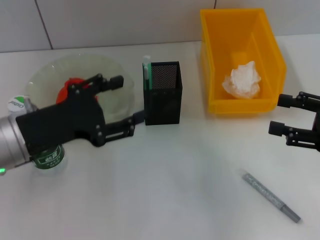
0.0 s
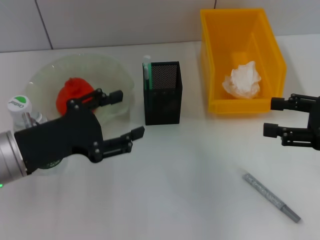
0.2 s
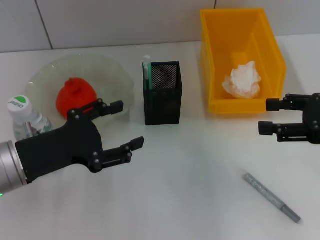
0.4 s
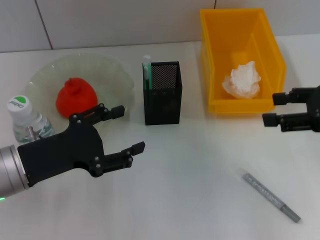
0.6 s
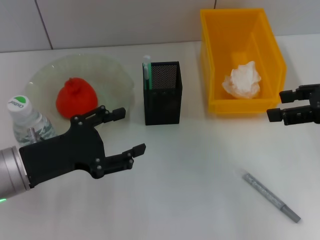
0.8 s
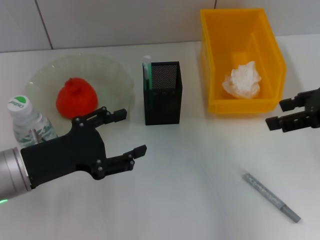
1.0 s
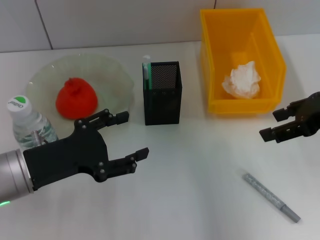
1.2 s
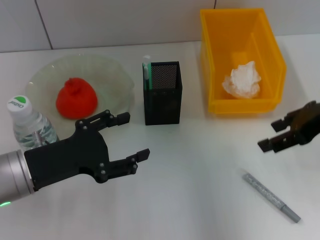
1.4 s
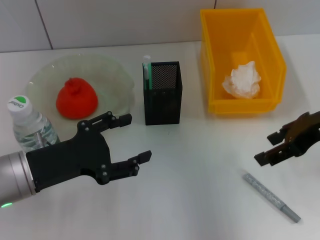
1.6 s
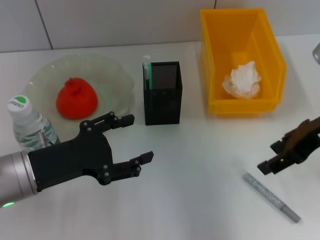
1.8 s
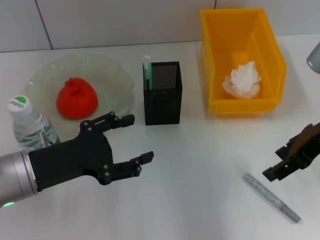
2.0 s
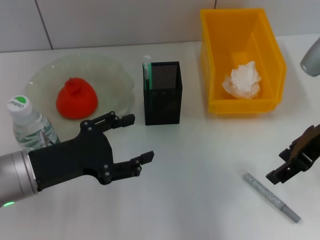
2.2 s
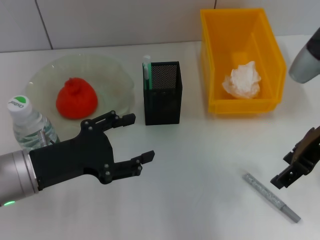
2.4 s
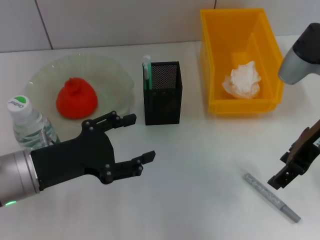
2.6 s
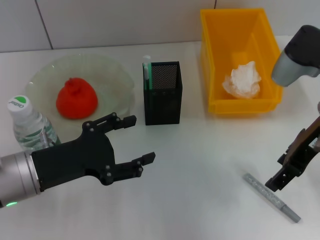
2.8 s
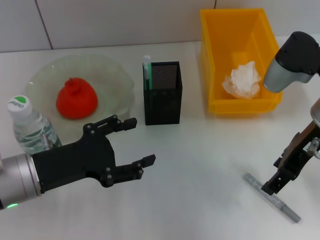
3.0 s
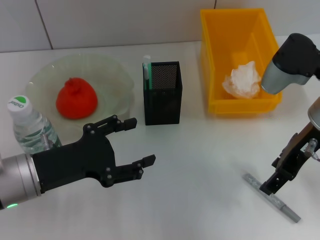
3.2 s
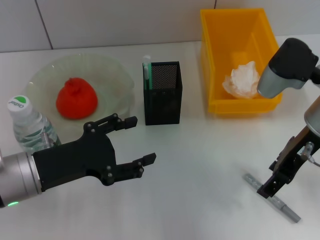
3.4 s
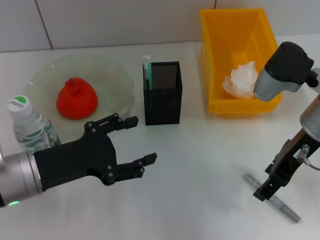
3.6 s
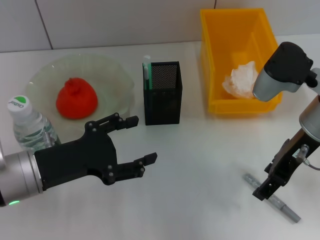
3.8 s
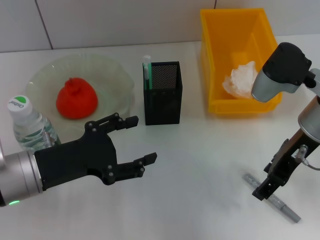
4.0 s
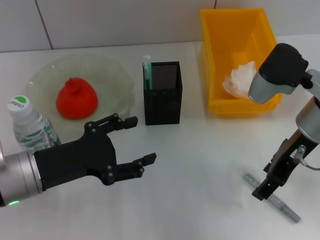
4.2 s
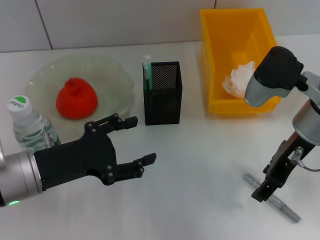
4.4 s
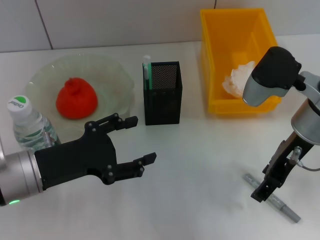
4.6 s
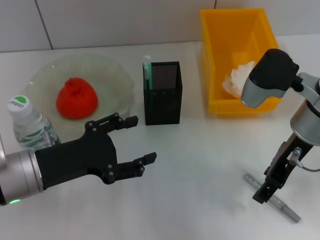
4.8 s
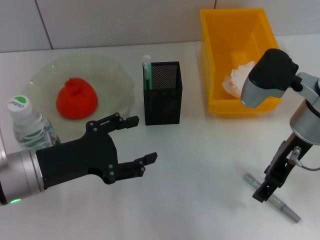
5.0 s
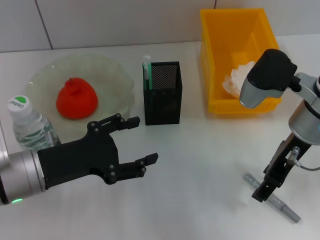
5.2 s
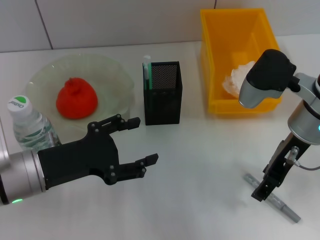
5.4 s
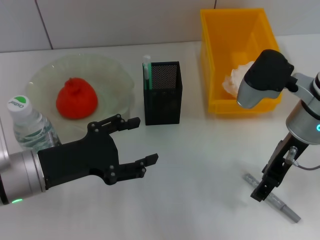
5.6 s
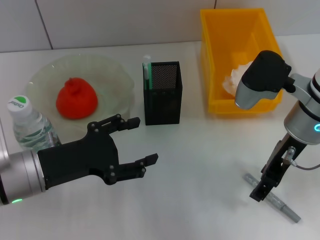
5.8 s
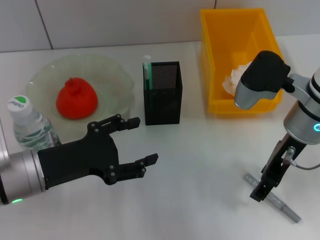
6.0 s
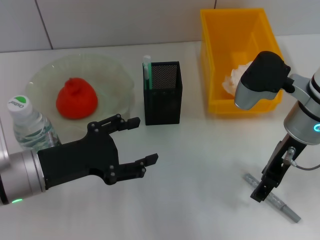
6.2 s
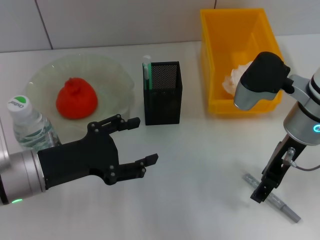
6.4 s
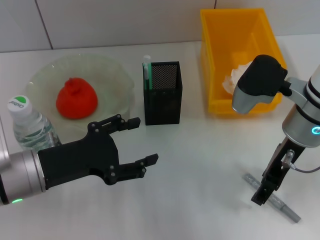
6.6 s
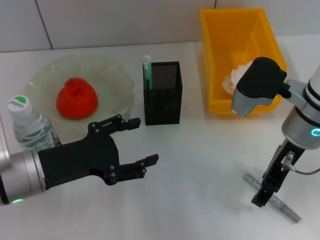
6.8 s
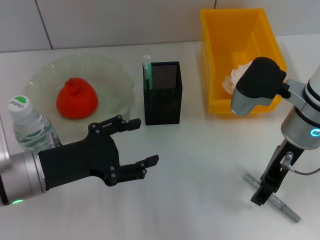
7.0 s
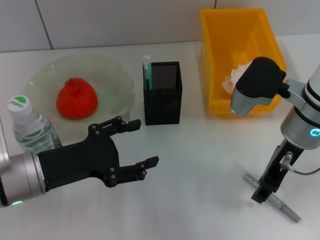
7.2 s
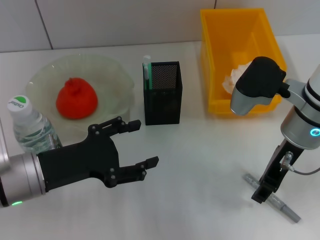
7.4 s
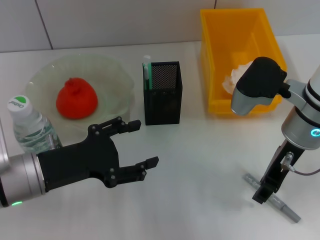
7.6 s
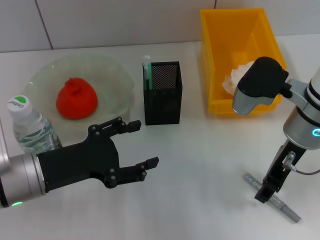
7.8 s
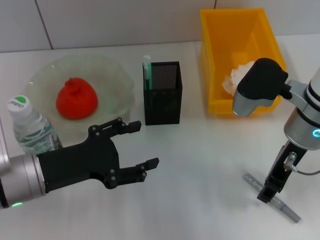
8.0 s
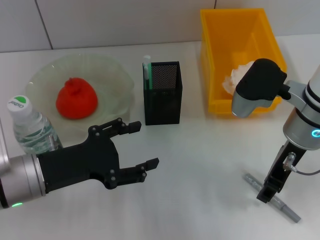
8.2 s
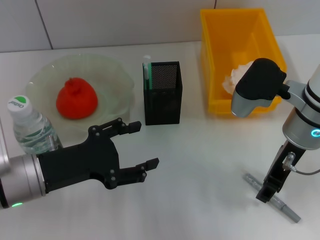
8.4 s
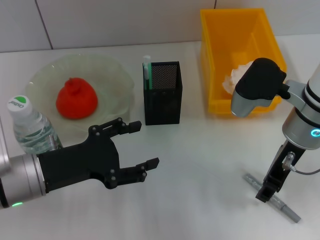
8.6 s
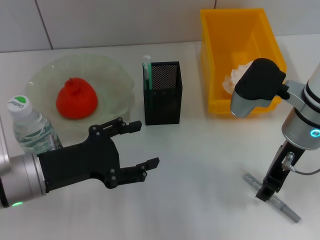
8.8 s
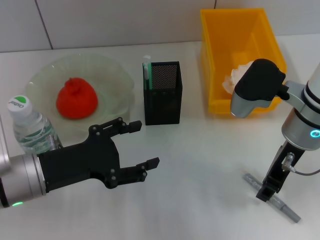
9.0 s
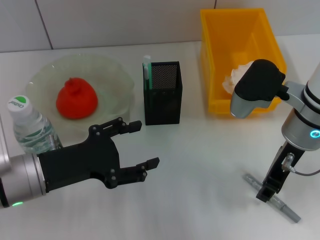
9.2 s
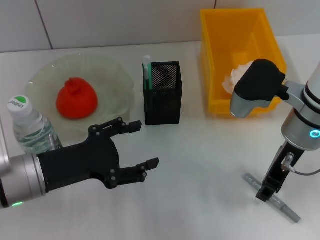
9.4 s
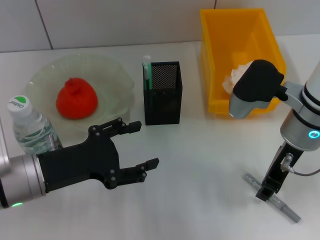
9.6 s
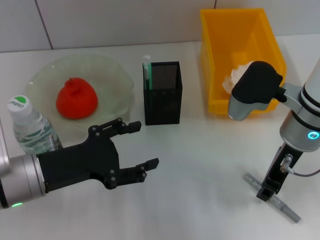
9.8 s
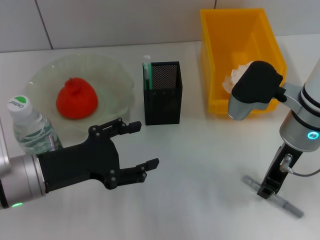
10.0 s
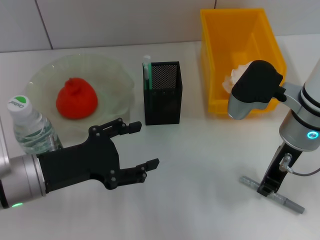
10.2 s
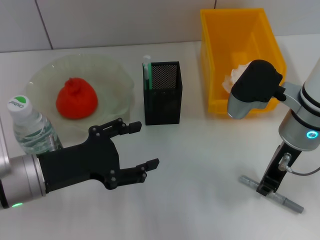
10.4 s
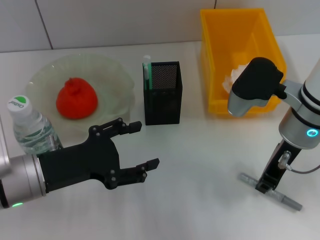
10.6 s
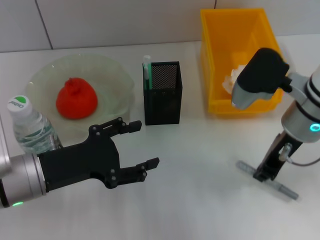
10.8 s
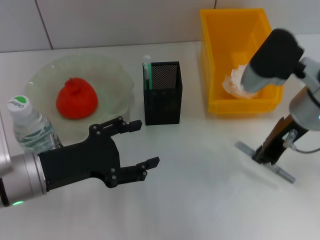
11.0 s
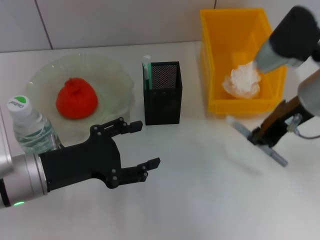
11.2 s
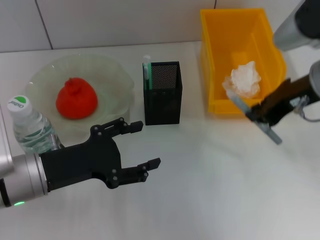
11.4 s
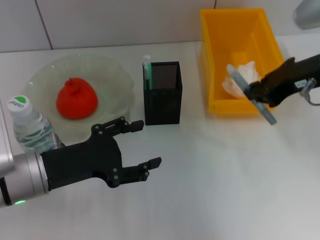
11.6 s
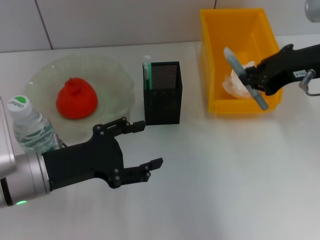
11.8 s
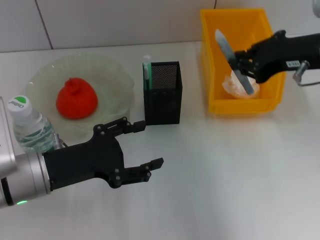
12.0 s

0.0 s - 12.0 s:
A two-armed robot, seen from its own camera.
Step, 0.0 s - 10.2 s: Grab the gray glue with the right hand.
0.0 s - 1.6 s: The right gripper is displaced forward, to the left and upward by roughly 10 cm.
1.6 s - 3.0 s: The right gripper moves to the left, about 5 cm.
3.0 s - 6.0 s: The grippers make only small movements.
6.0 s - 7.6 s: The right gripper closes.
7.6 s - 9.0 s: Neither gripper changes place.
9.0 s - 10.4 s: The right gripper closes its fingers.
10.4 s - 12.0 s: The right gripper heads upward and to the right, covering roughly 10 cm.

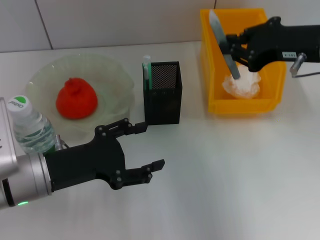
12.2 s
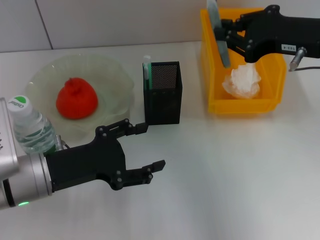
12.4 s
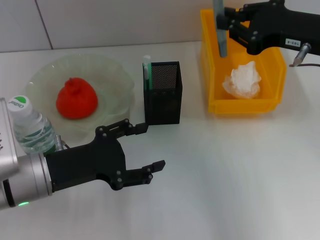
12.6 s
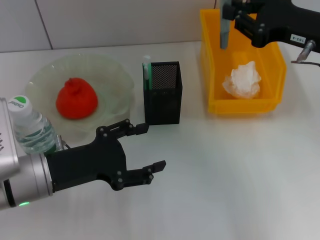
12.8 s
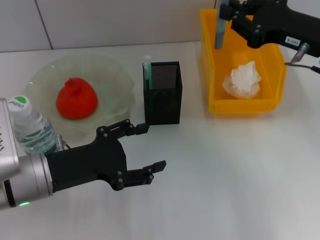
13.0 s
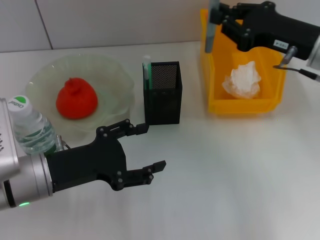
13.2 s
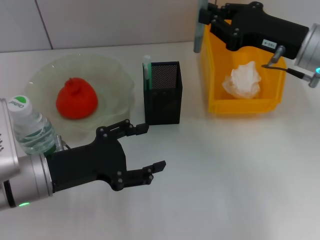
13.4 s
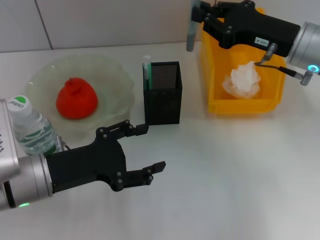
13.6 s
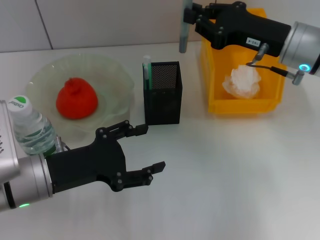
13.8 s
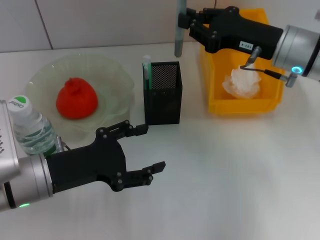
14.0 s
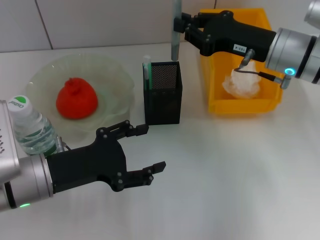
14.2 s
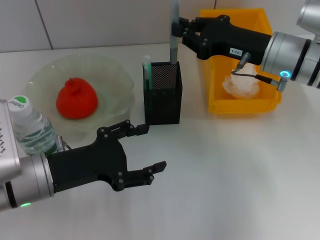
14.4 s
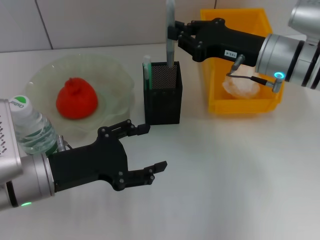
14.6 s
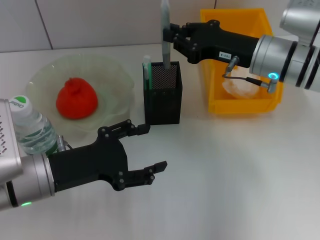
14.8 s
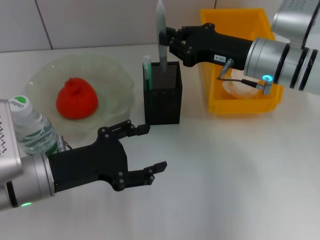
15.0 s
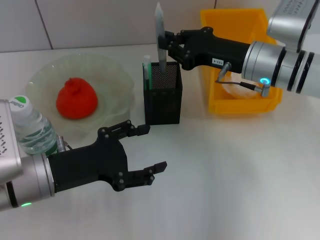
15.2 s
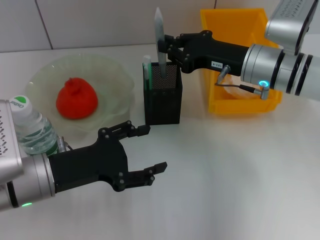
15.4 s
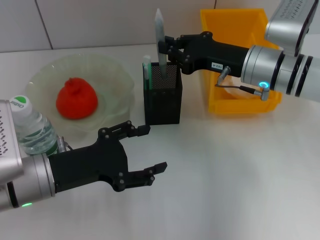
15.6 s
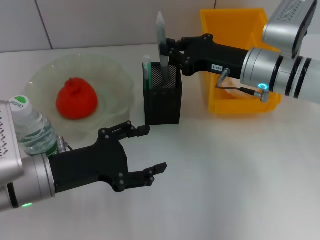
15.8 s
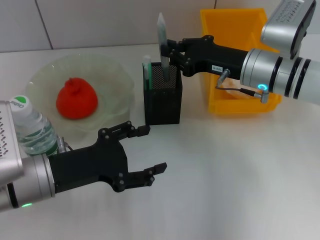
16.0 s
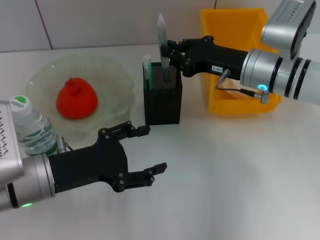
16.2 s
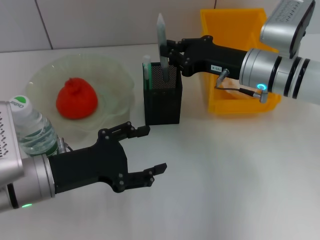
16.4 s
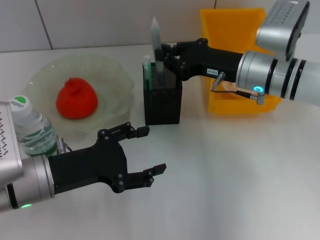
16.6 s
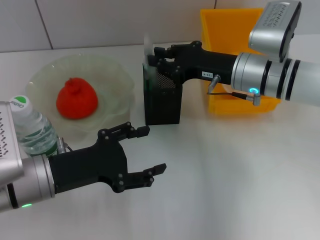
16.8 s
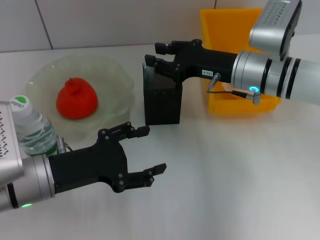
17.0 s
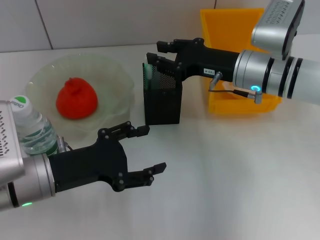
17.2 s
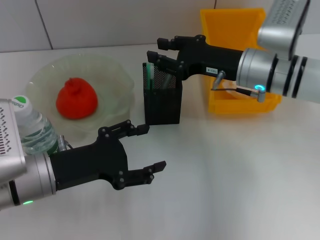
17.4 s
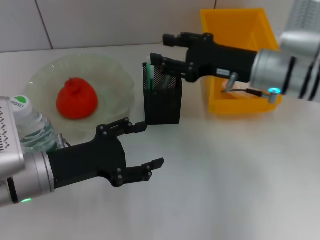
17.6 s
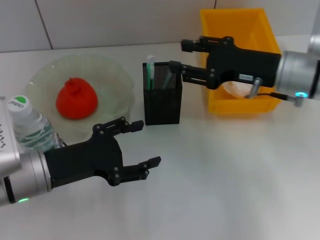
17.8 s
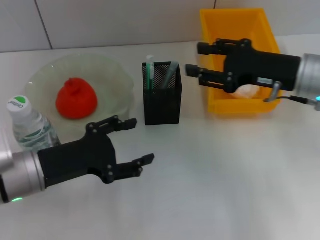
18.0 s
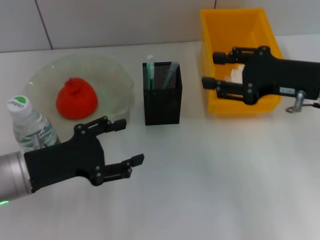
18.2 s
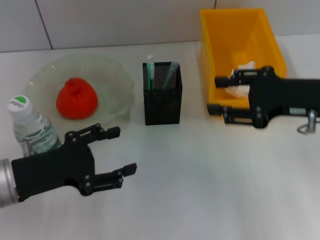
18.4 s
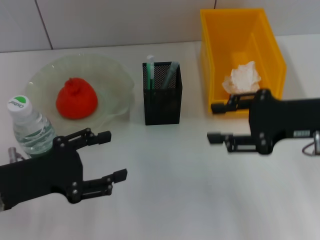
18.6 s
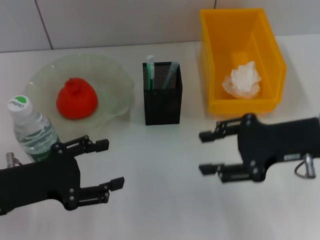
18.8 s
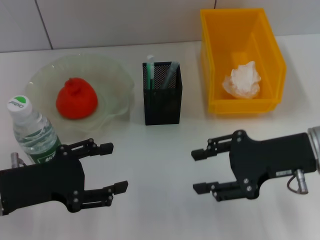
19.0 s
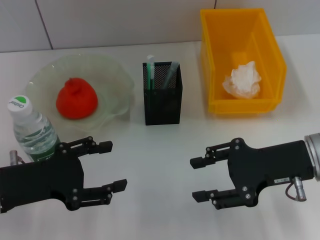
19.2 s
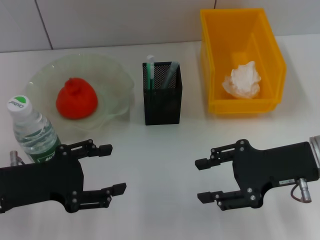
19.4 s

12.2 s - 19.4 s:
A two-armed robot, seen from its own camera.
Step, 12.2 s - 17.0 s: Place the gray glue into the pen holder with the right hand.
12.2 s - 13.6 s: The right gripper heads downward, covering some 5 cm.
13.6 s - 15.0 s: The right gripper shifts by roughly 5 cm.
15.0 s - 16.6 s: There are only small adjustments of the grippers.
16.6 s - 18.0 s: The right gripper is displaced to the right and backward by roughly 10 cm, and opens.
18.0 s - 19.4 s: The left gripper shifts by some 5 cm. The right gripper travels backward by roughly 5 cm.

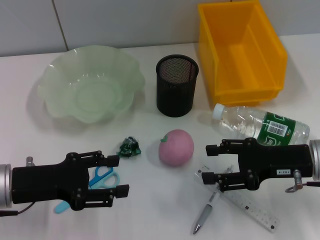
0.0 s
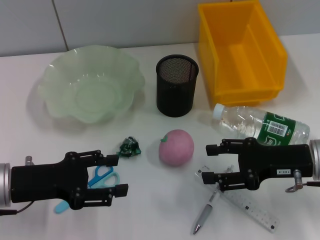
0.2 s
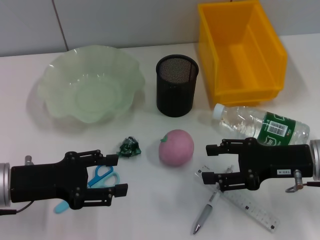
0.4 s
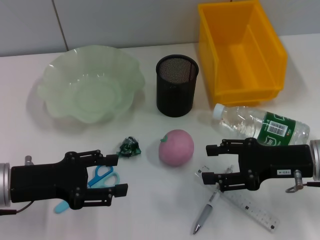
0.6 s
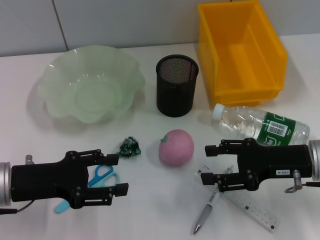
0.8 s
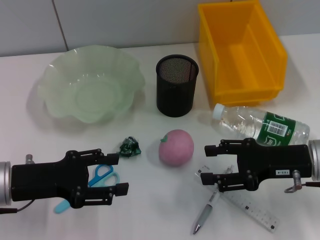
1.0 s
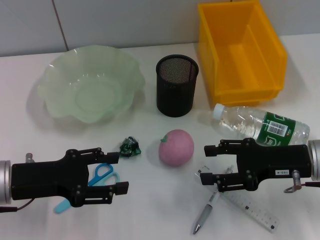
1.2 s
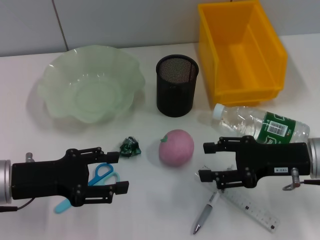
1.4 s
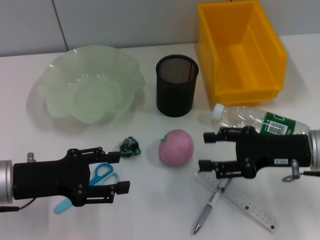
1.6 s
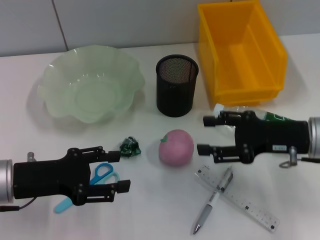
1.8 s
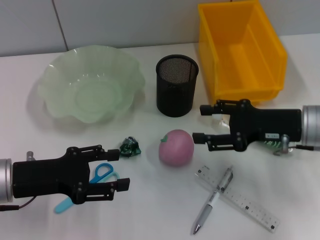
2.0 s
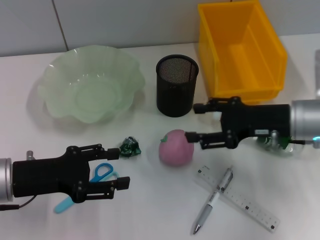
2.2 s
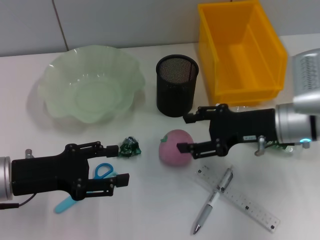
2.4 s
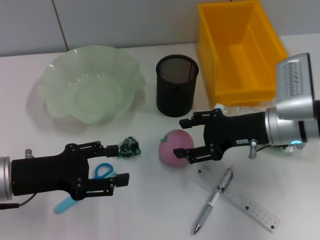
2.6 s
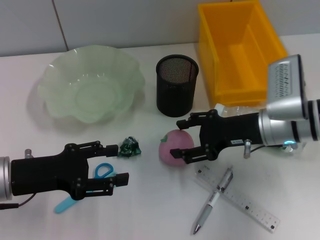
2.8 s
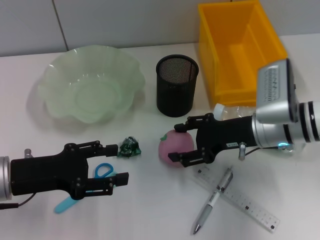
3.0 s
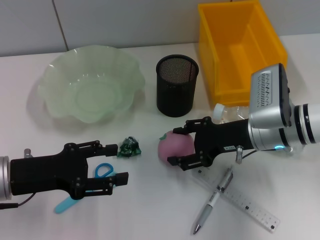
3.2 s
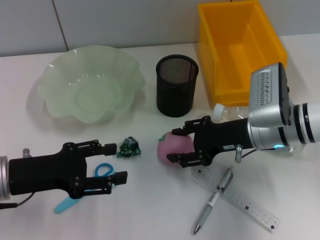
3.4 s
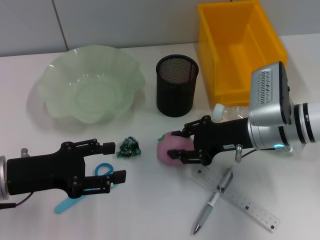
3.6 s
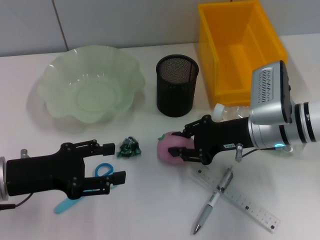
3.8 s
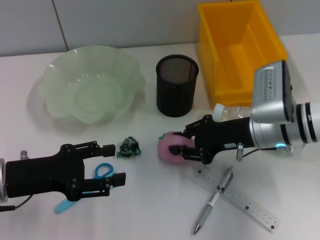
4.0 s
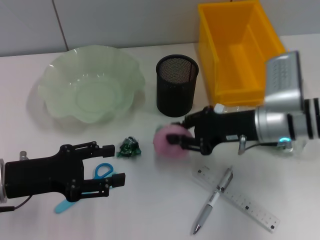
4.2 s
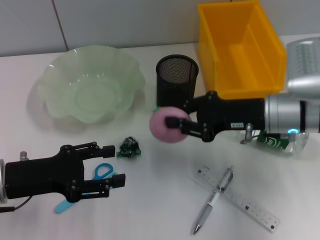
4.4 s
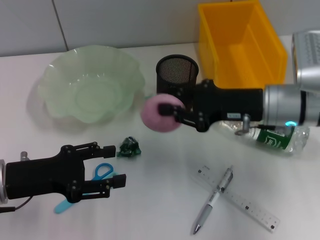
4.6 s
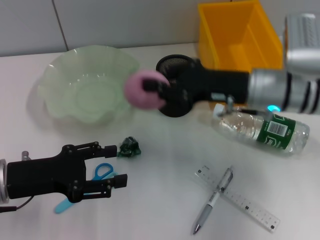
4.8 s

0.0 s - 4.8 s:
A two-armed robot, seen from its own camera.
Step, 0.0 s - 3.6 s: Grab the peach with the right hand.
0.0 s - 1.6 s: Both grippers stay put.
1.6 s - 3.2 s: The right gripper moves to the left and forward, approximately 10 cm.
3.2 s - 4.8 s: The right gripper travels upward by about 5 cm, and closes.
